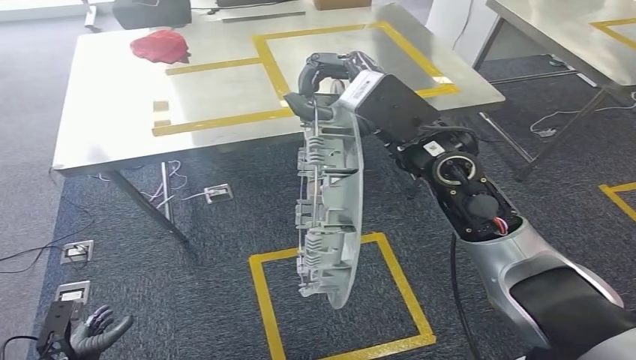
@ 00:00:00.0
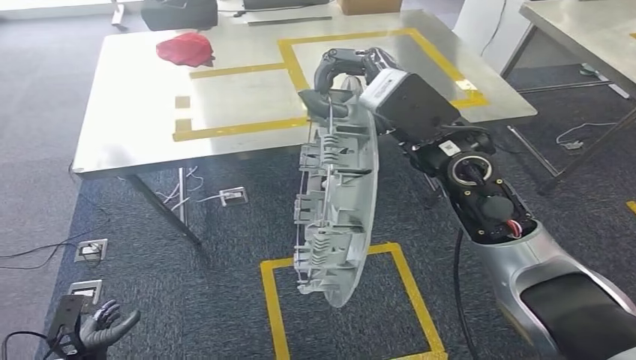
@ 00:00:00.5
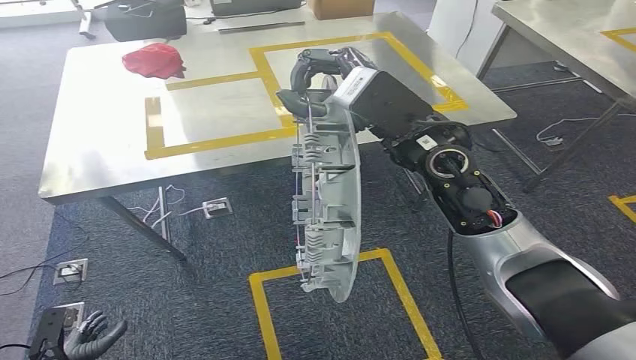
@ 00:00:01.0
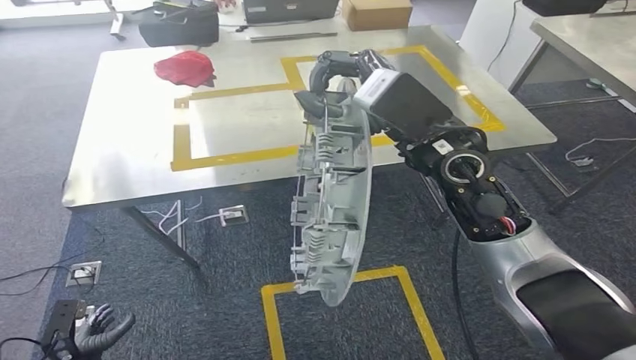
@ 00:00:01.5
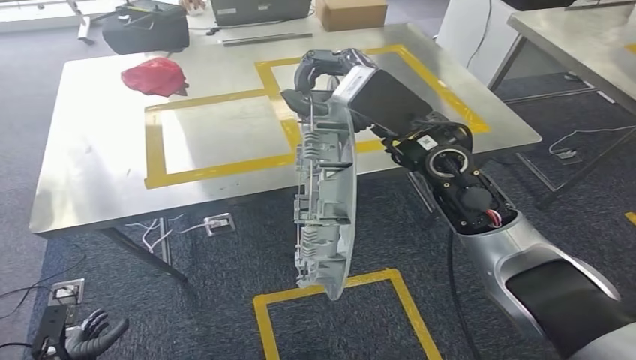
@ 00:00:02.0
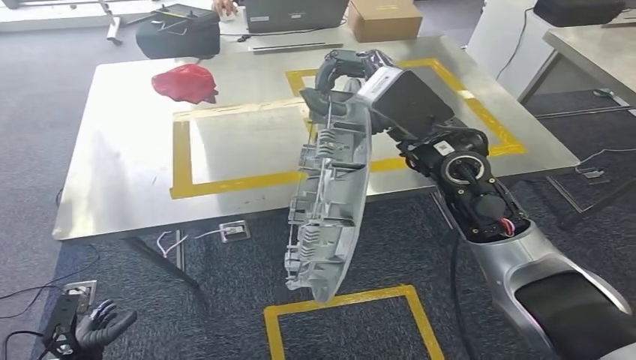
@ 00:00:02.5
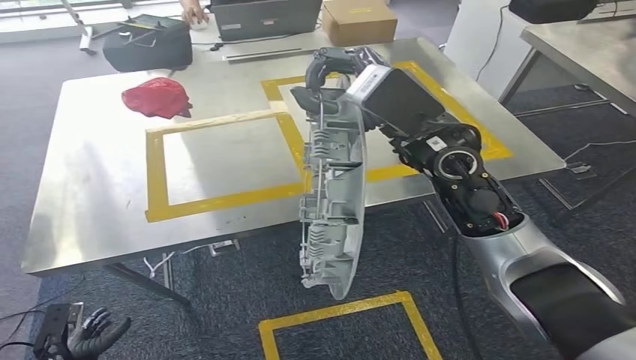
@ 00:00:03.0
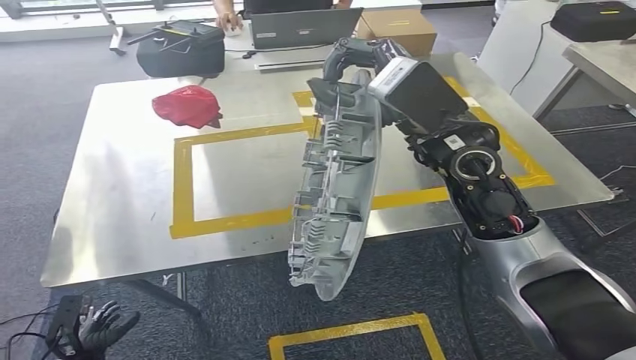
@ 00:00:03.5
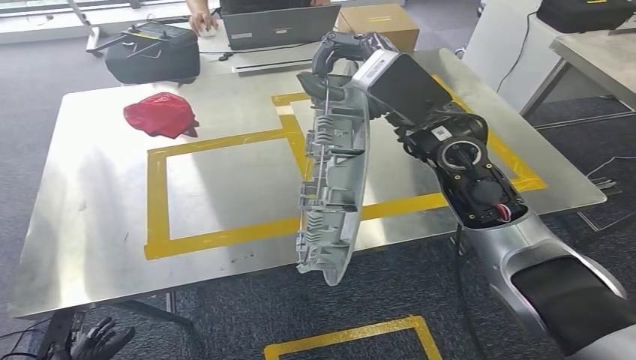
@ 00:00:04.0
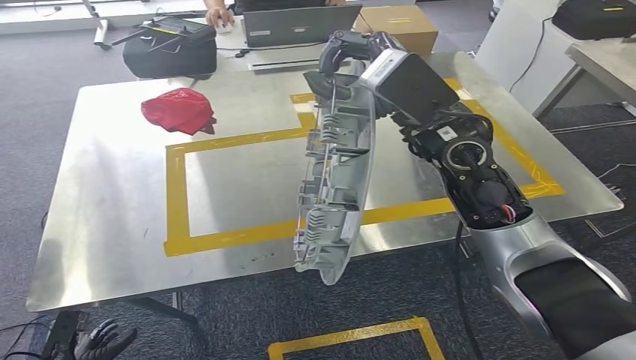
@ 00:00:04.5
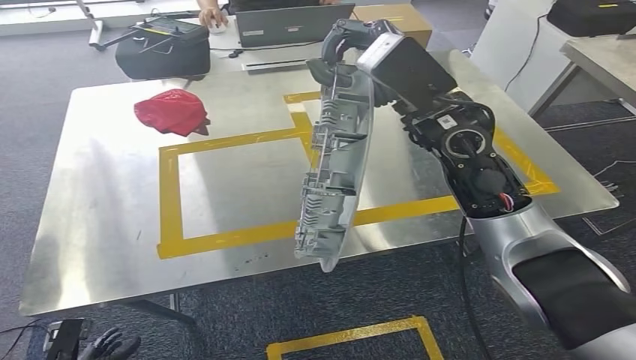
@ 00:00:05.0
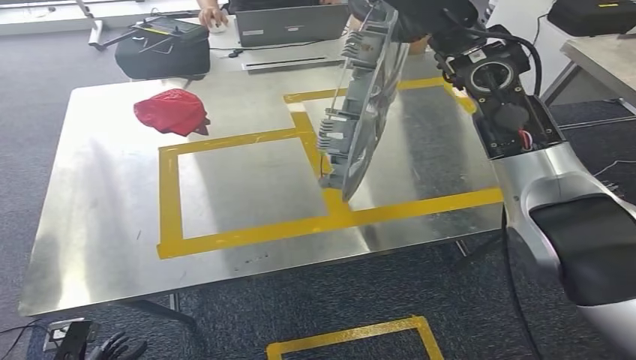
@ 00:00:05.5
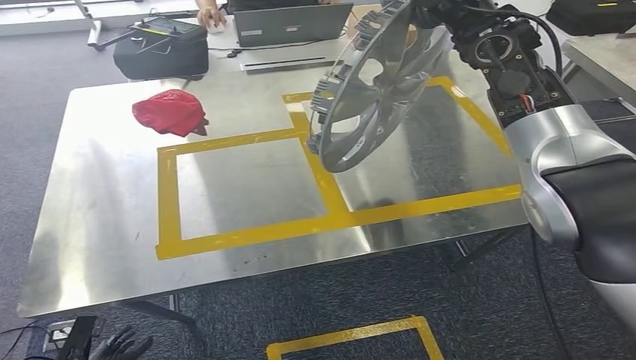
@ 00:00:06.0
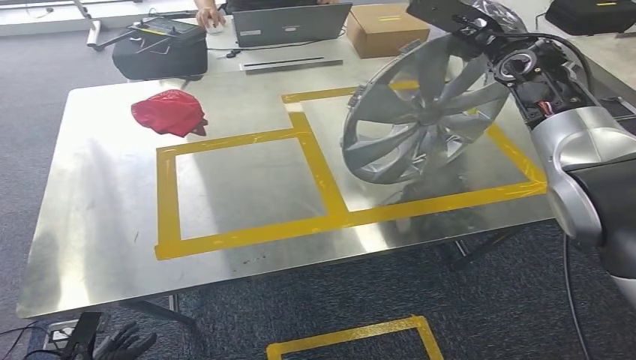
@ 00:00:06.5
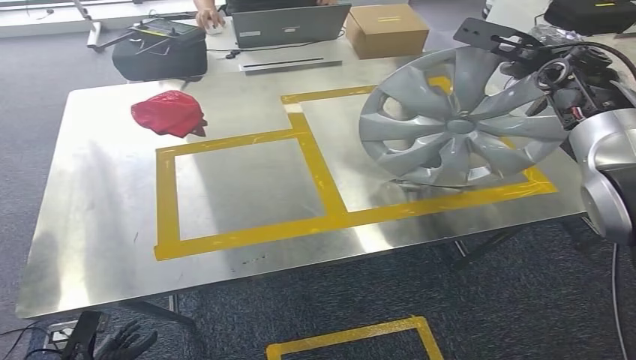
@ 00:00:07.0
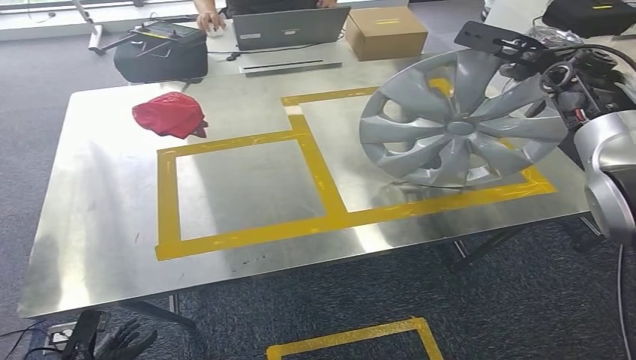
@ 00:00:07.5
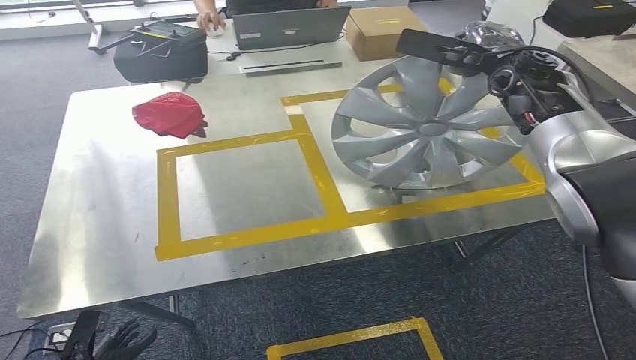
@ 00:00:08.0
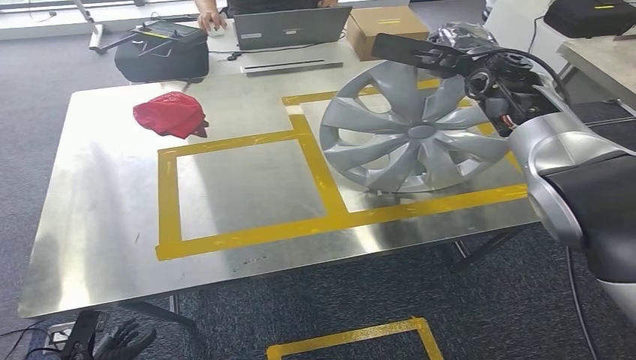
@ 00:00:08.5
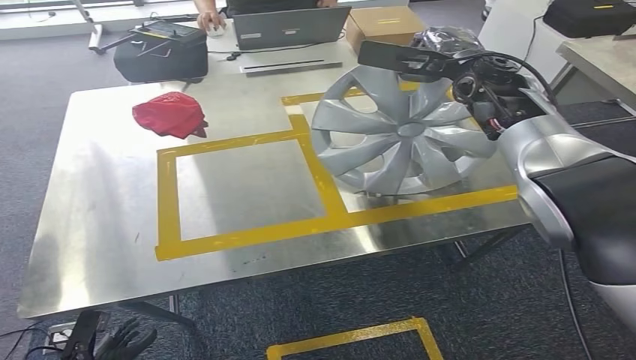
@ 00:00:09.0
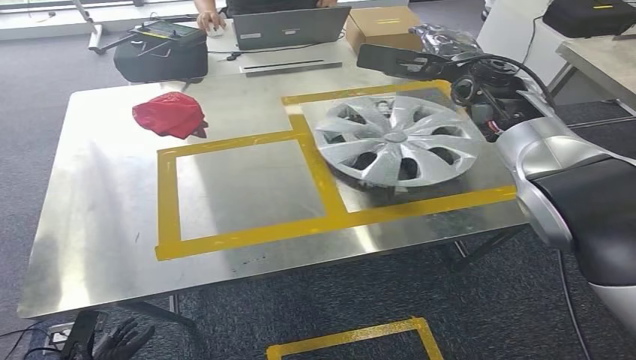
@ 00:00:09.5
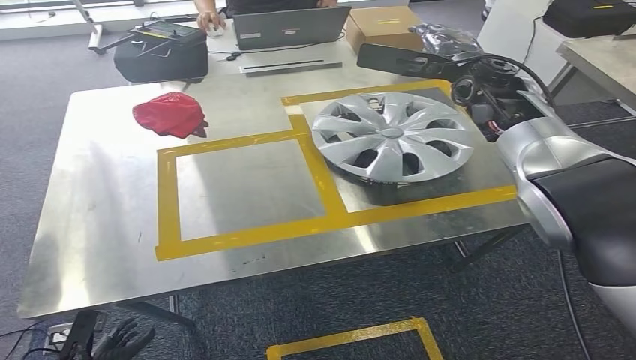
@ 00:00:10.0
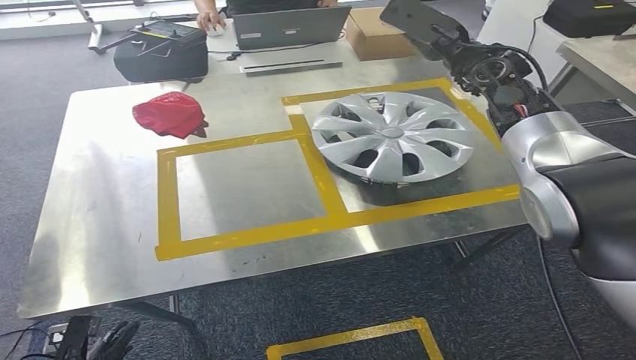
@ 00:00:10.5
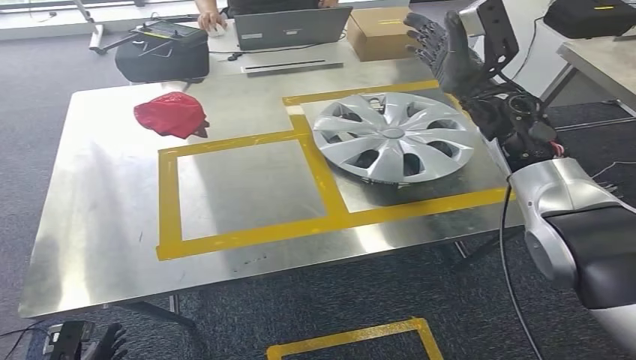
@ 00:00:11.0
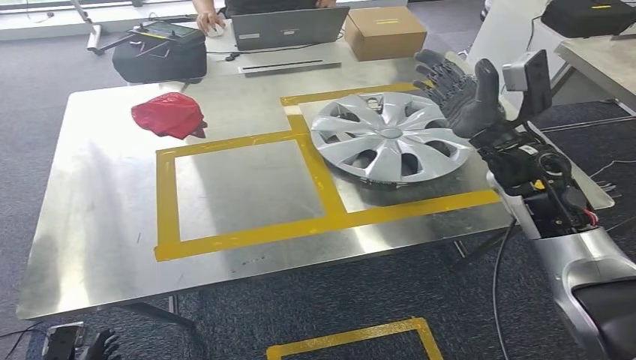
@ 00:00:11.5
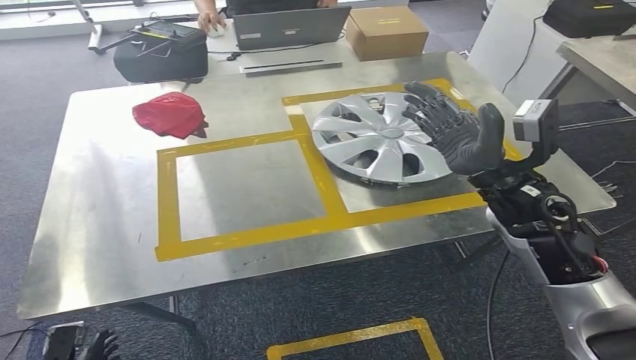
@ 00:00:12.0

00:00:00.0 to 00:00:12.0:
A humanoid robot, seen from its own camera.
Step, 00:00:00.0 to 00:00:05.5: Move the small component to the workbench.
Step, 00:00:06.0 to 00:00:11.5: Insert the small component into the corresponding slot on the workbench.
00:00:08.0 to 00:00:10.0: The right hand shifts by some 5 cm.
00:00:10.0 to 00:00:12.0: The right hand moves backward and downward, about 20 cm.

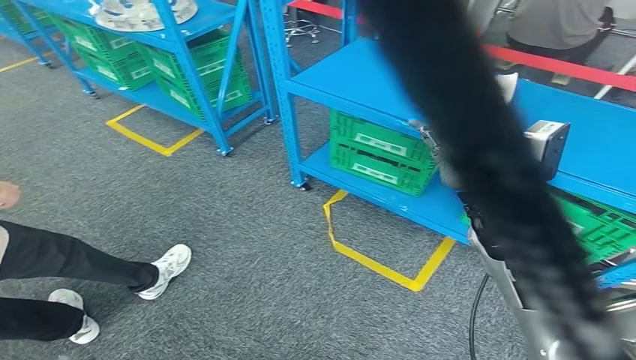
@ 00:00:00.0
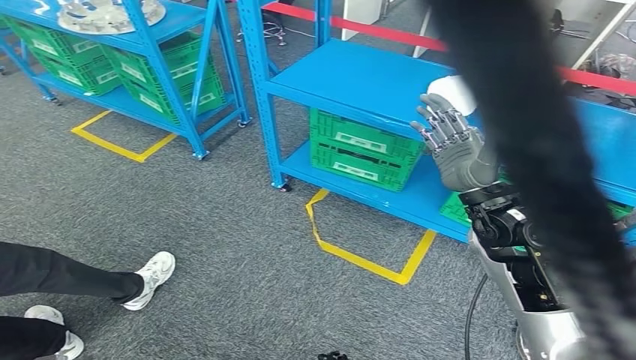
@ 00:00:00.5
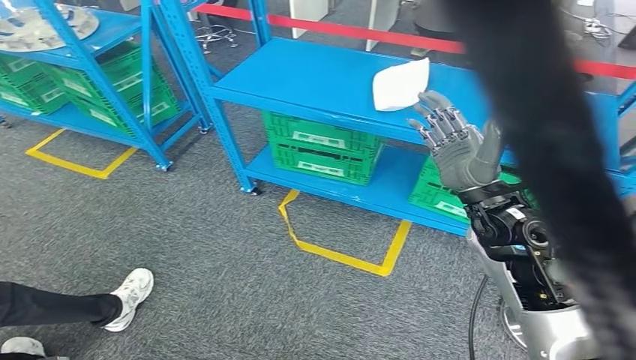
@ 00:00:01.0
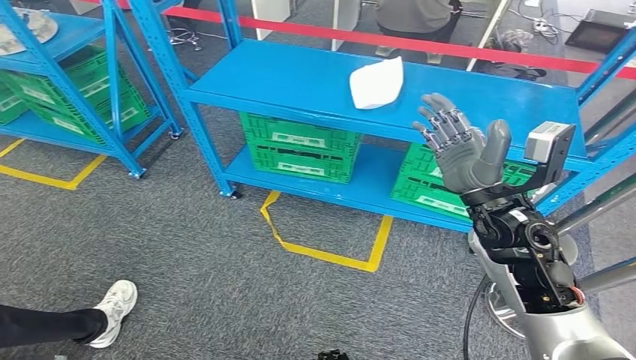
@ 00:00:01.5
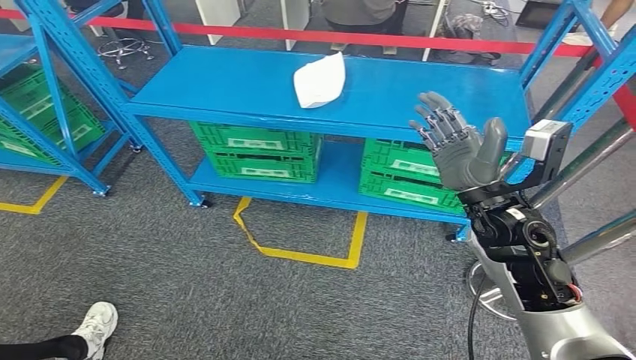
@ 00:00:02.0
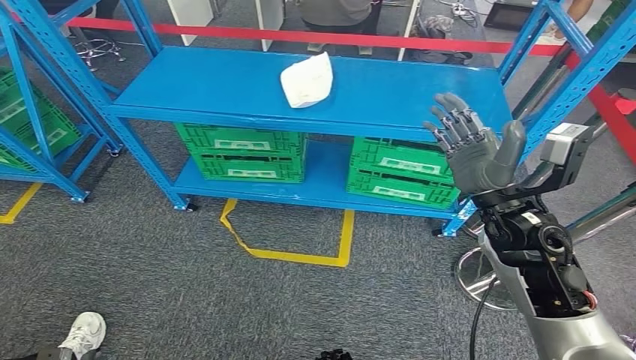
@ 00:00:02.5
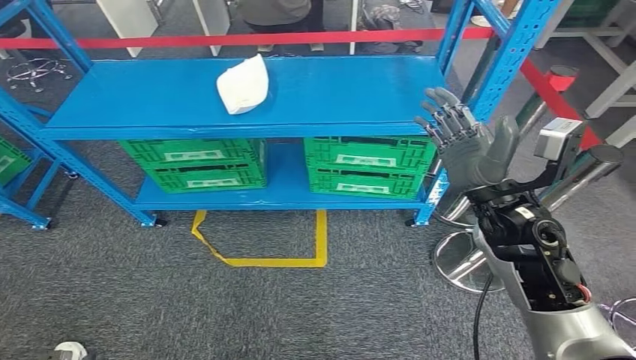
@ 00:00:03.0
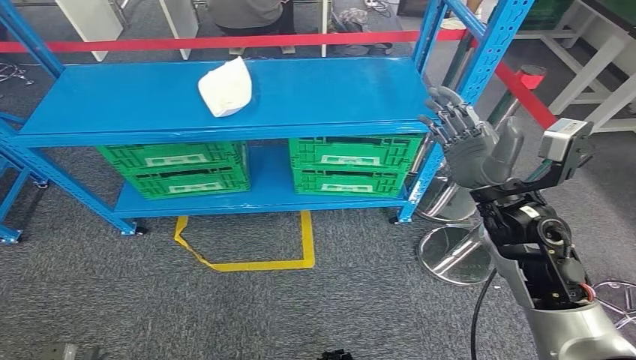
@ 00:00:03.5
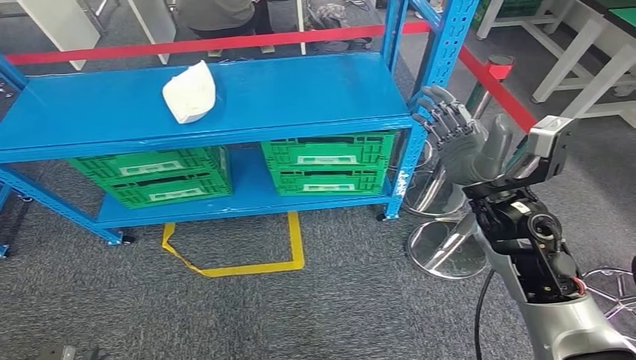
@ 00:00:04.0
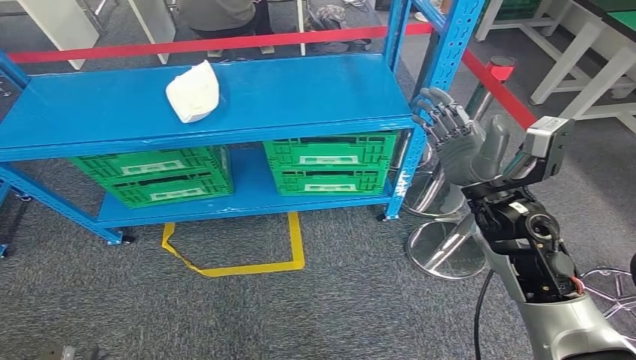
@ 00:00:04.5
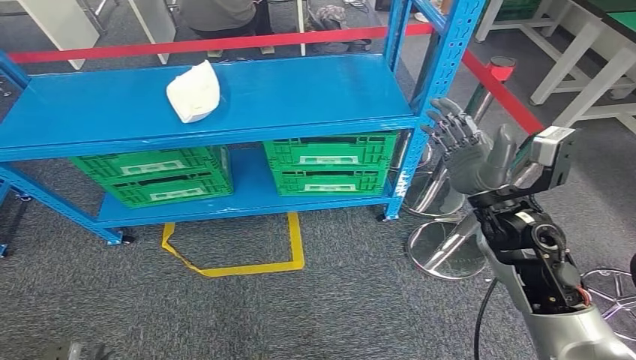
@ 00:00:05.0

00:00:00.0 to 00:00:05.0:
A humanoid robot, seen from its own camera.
Step, 00:00:00.0 to 00:00:05.0: Return to the initial position at the workbench.
